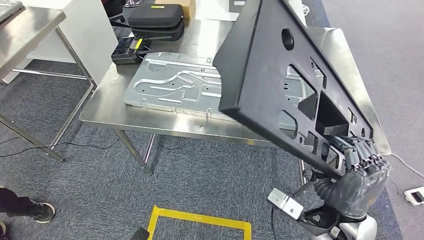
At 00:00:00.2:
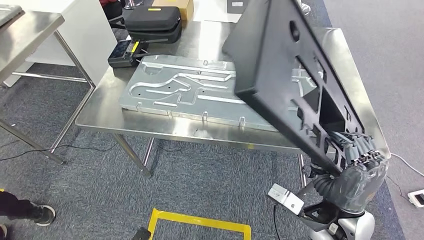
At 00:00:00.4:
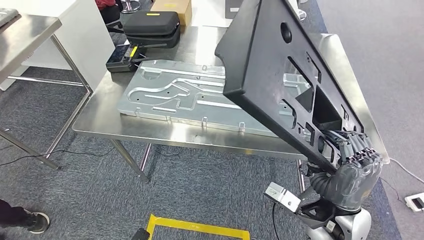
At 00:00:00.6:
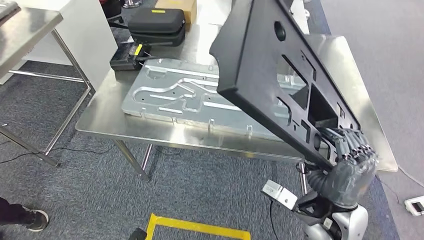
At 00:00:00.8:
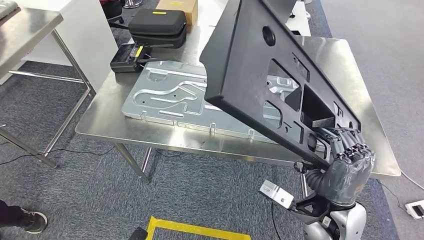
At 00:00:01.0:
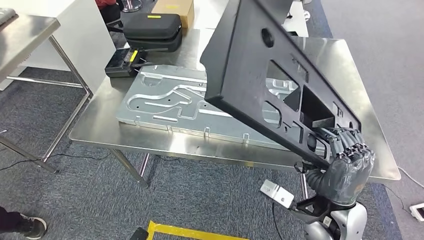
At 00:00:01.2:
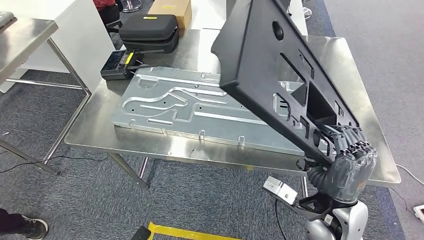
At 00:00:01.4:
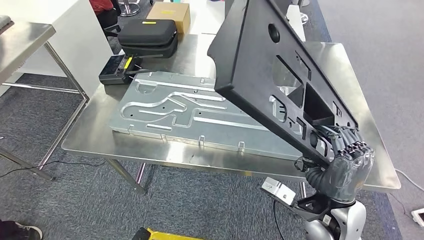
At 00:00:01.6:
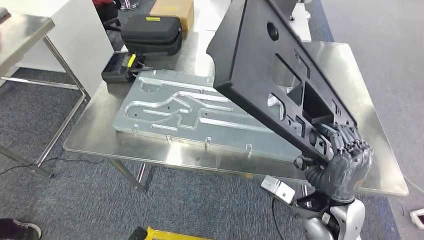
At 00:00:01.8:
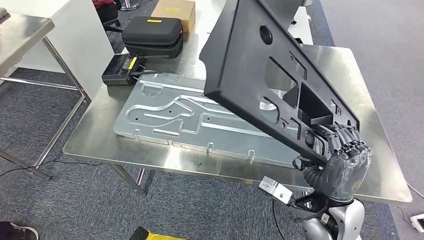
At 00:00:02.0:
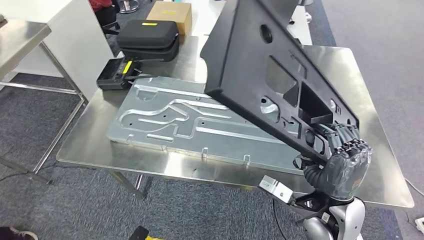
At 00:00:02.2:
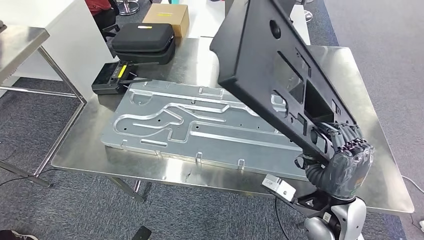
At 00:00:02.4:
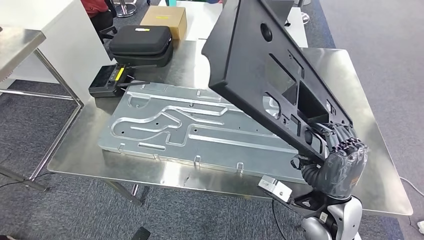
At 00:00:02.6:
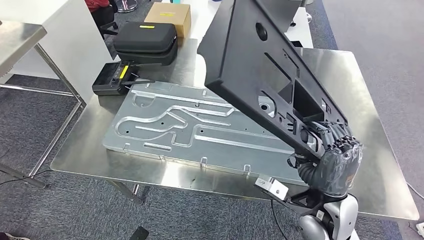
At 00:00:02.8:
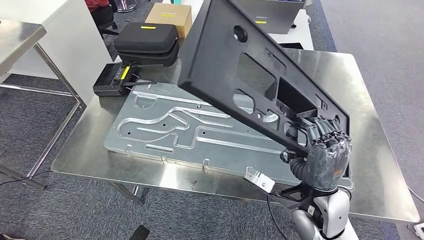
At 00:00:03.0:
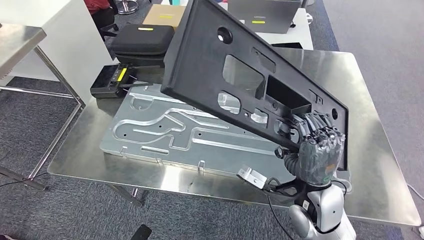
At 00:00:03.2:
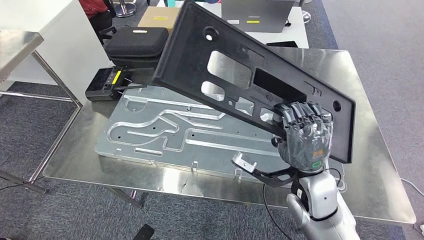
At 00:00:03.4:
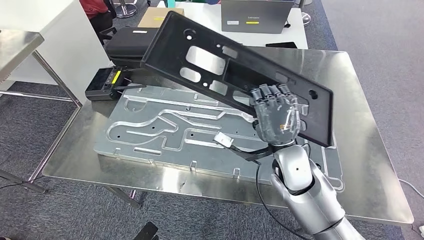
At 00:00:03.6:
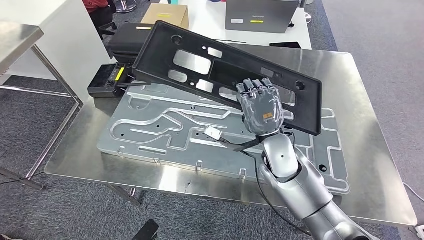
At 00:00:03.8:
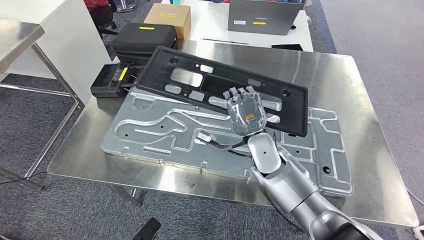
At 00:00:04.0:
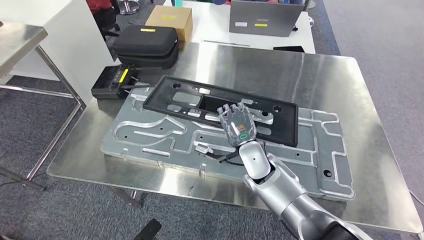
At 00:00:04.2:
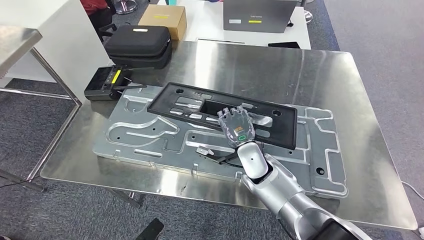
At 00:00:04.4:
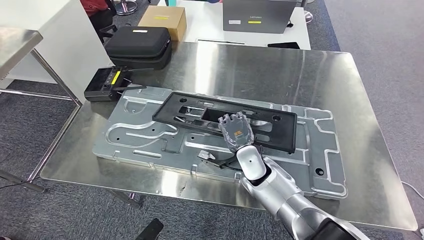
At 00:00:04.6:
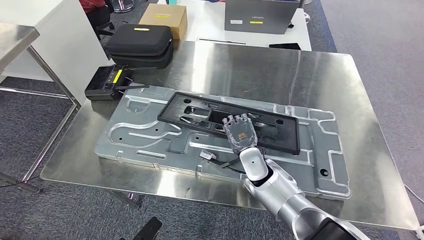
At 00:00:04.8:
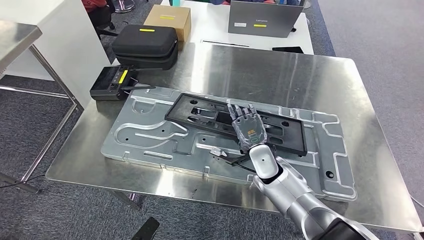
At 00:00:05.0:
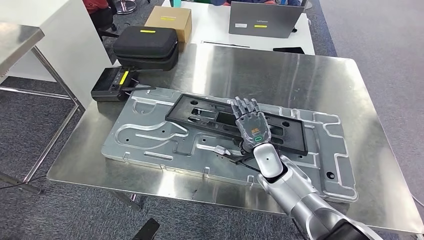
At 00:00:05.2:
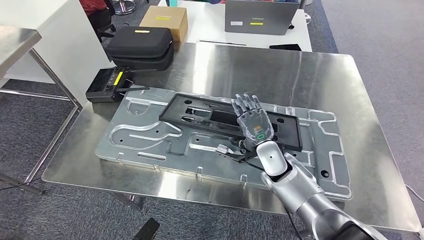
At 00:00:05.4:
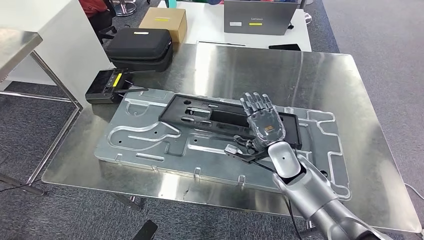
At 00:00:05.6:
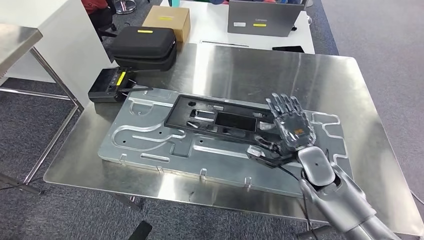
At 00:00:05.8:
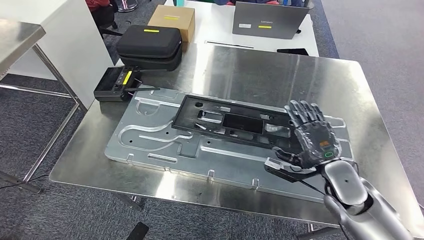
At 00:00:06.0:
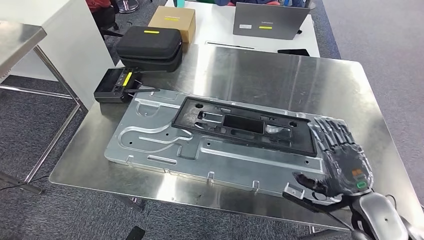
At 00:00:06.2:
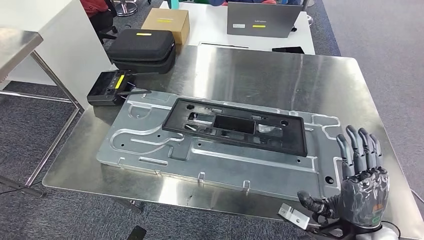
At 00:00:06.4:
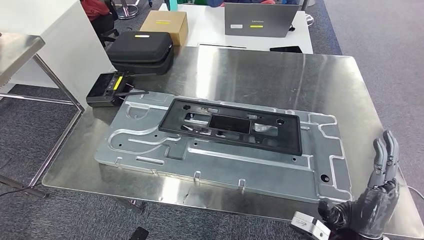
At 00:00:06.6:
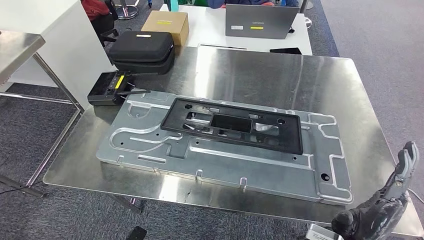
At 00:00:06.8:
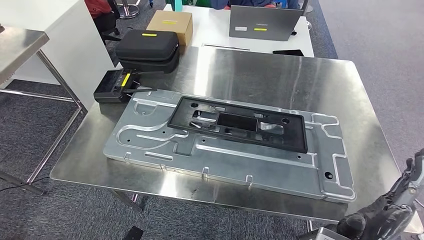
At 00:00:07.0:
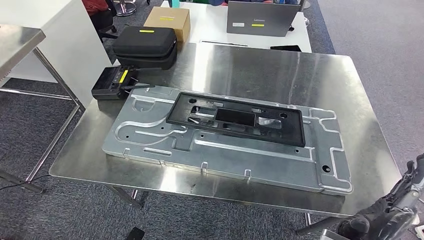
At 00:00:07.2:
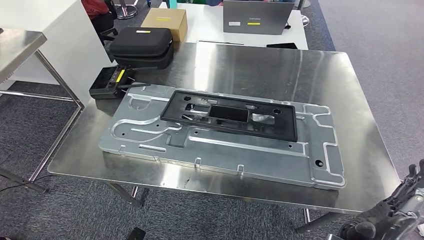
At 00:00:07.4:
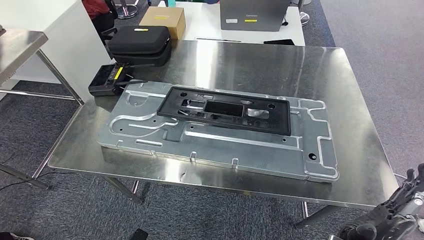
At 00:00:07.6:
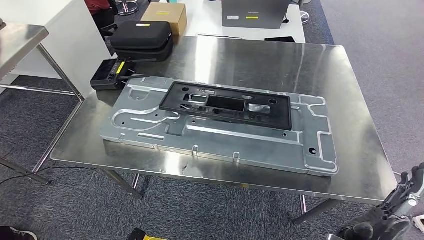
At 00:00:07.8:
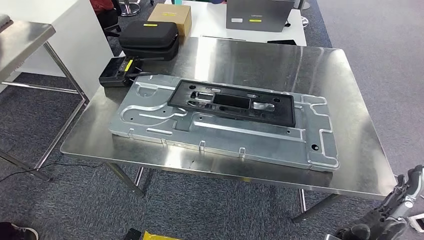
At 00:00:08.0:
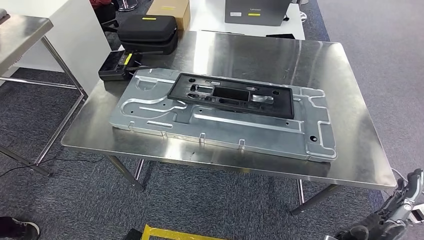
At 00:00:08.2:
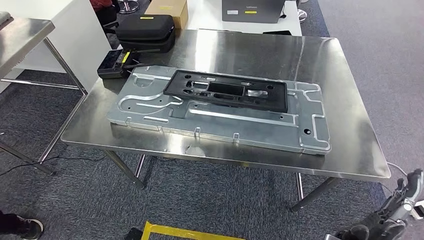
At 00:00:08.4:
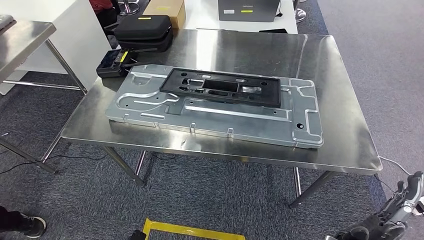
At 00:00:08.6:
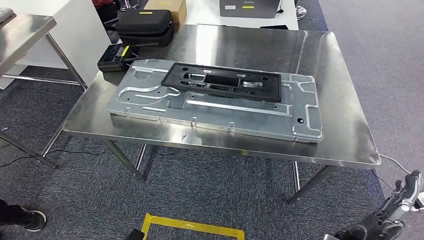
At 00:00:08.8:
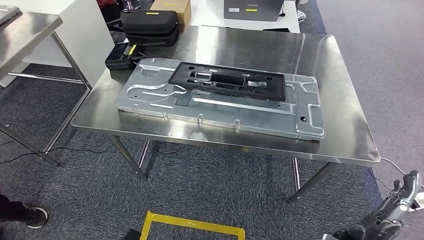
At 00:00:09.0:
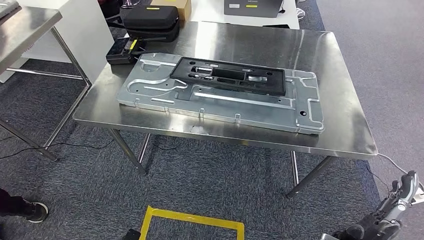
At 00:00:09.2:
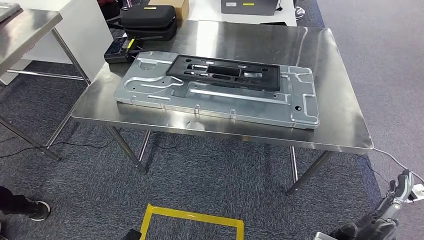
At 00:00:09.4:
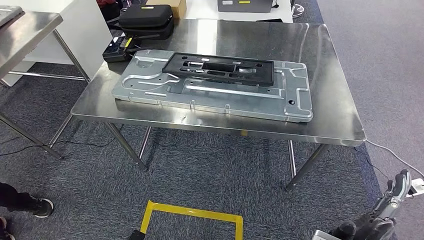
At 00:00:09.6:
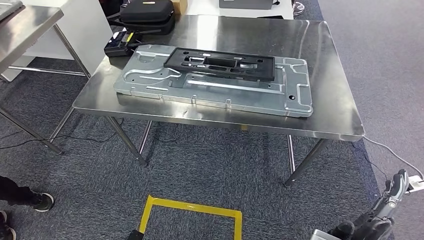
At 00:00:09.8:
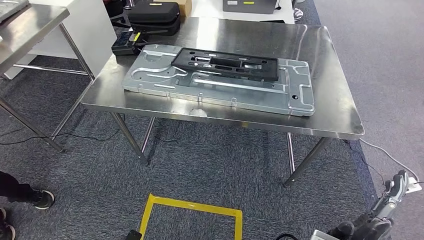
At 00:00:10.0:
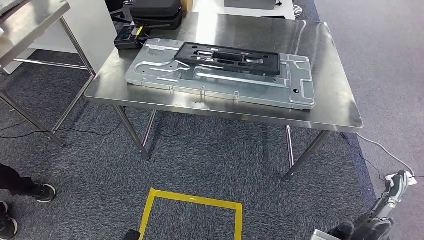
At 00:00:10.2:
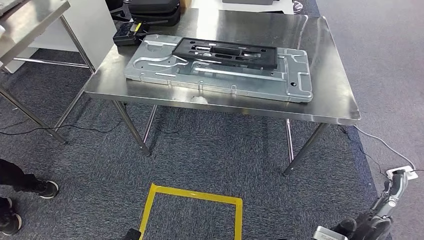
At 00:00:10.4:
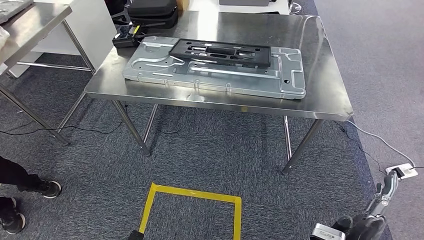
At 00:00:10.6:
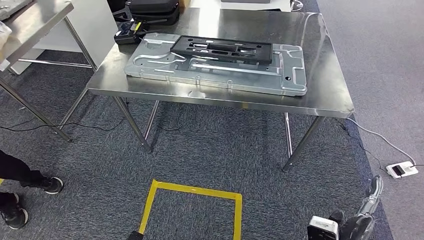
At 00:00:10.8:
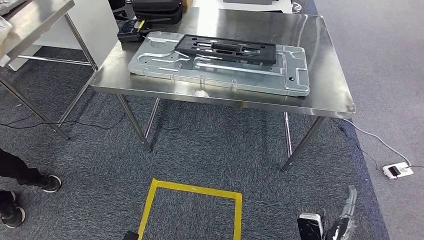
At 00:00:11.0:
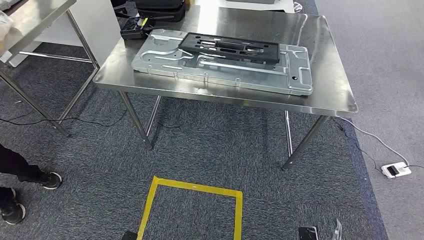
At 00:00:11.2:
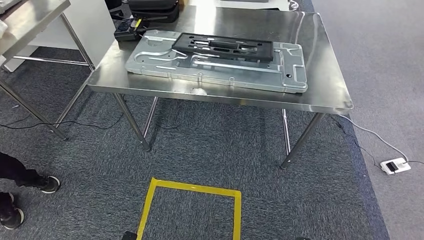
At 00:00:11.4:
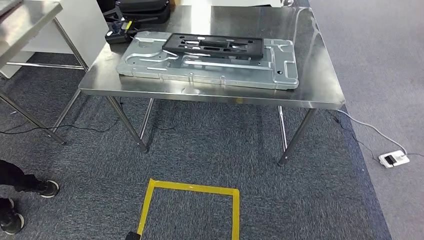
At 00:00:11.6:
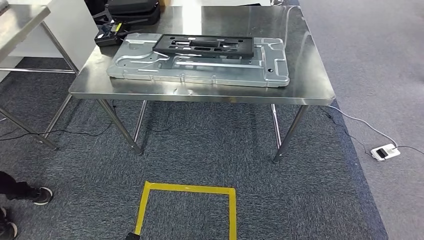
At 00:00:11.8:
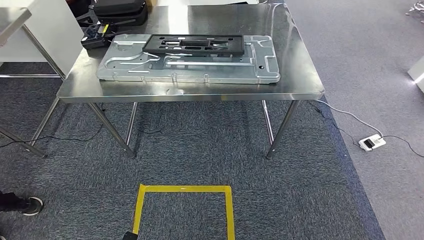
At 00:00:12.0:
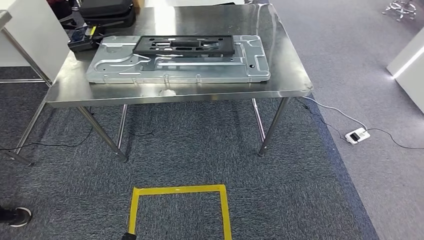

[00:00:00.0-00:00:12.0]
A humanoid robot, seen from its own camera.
Step, 00:00:00.4 to 00:00:06.0: Insert the large material into the corresponding slot on the workbench.

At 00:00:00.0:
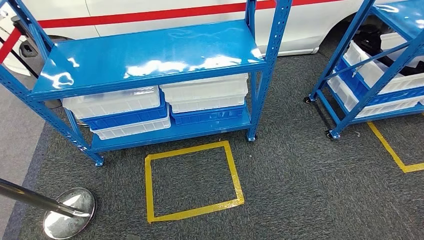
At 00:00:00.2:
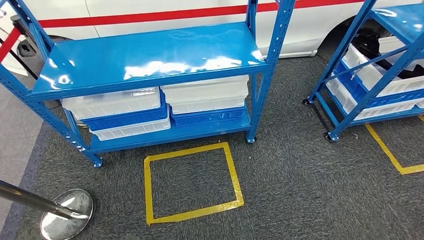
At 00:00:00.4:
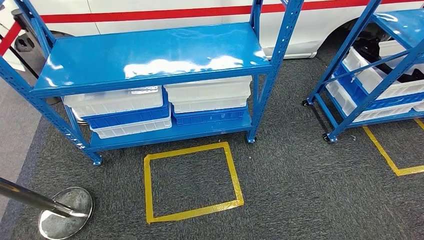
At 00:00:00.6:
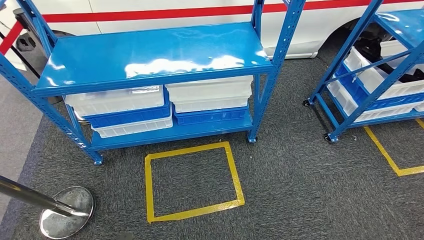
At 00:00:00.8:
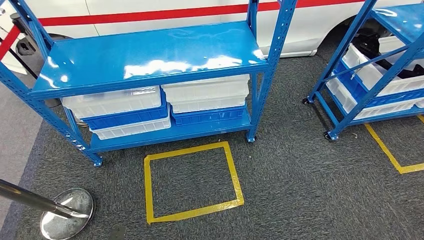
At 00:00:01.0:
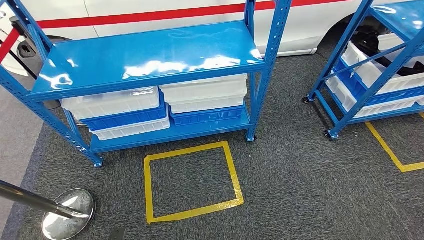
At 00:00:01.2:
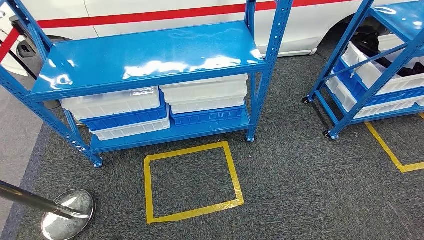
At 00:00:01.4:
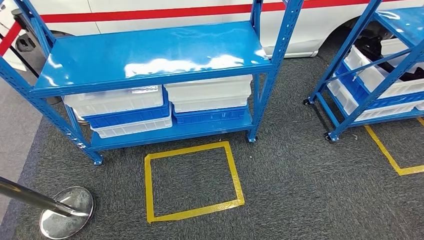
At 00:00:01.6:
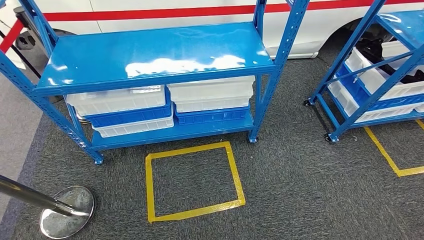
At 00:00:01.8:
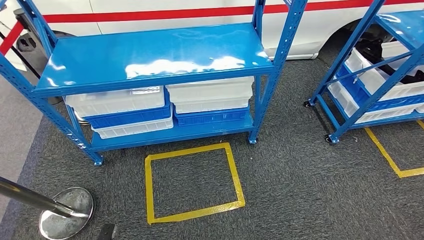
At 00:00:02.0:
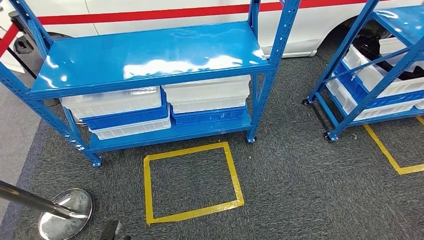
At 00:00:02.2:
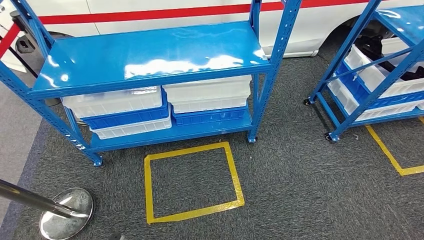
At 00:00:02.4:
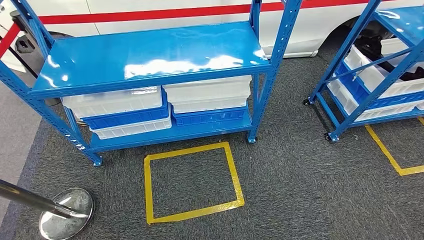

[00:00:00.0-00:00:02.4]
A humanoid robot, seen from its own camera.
Step, 00:00:00.0 to 00:00:02.2: Move to the initial position of the shelf.
00:00:00.0 to 00:00:01.2: The left hand shifts by roughly 5 cm.
